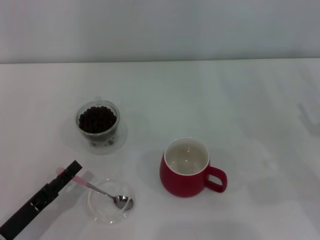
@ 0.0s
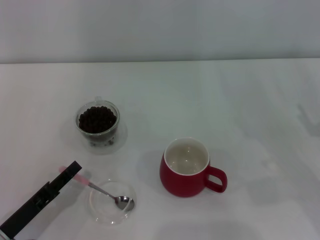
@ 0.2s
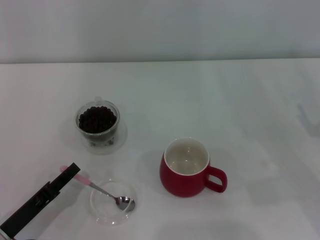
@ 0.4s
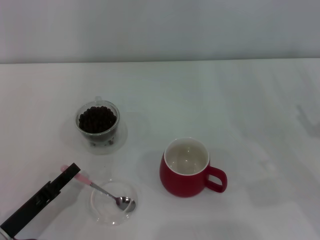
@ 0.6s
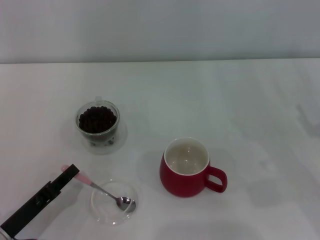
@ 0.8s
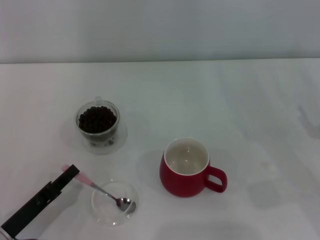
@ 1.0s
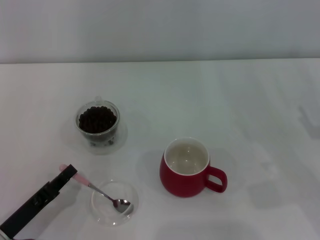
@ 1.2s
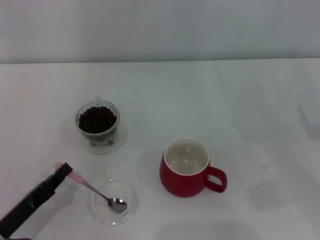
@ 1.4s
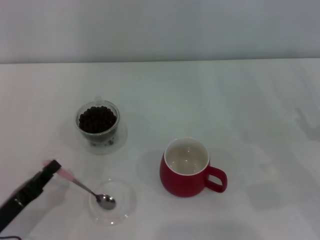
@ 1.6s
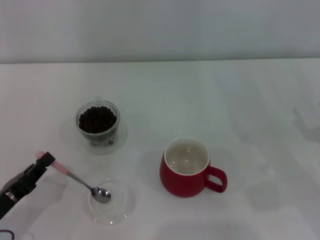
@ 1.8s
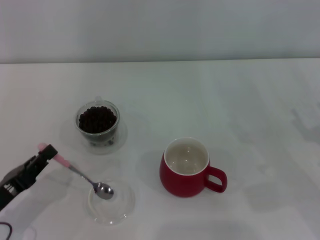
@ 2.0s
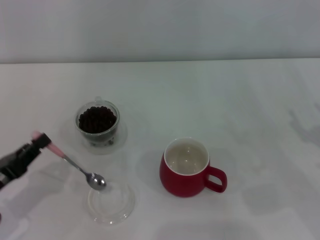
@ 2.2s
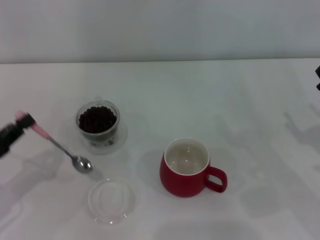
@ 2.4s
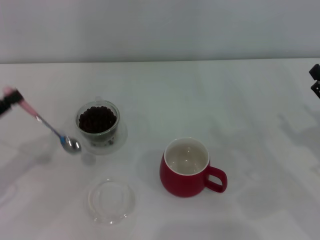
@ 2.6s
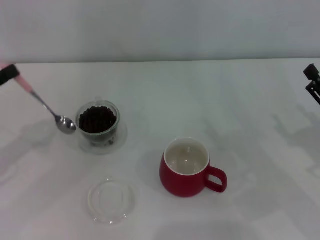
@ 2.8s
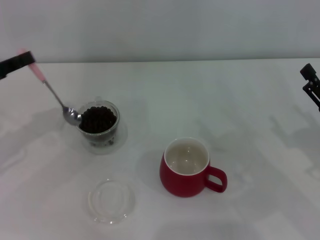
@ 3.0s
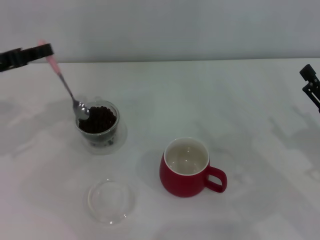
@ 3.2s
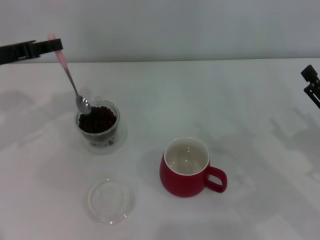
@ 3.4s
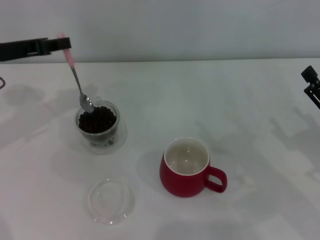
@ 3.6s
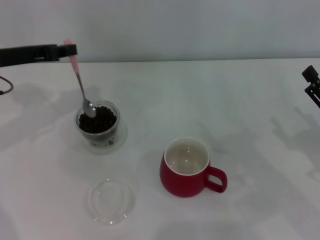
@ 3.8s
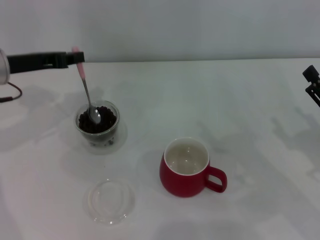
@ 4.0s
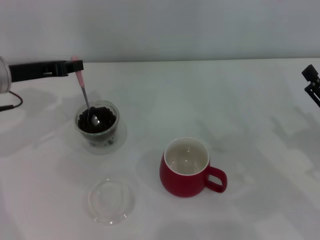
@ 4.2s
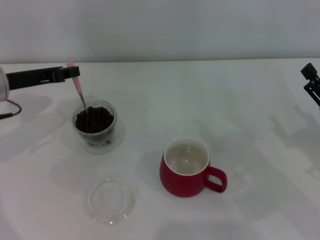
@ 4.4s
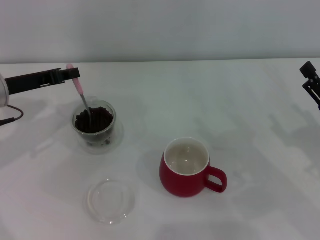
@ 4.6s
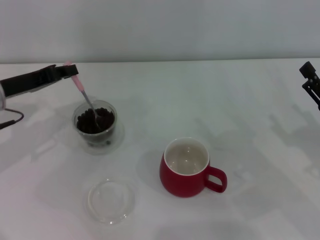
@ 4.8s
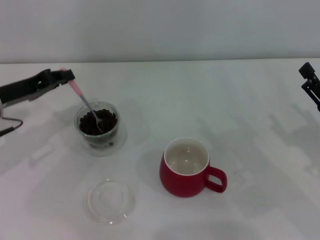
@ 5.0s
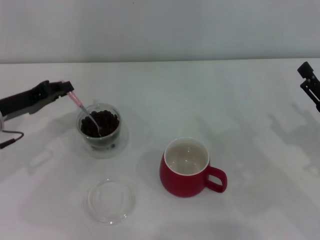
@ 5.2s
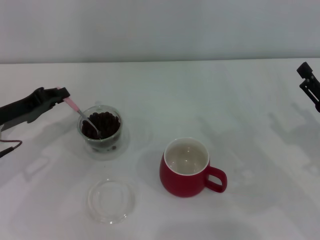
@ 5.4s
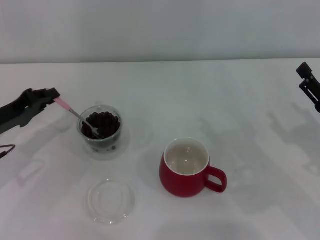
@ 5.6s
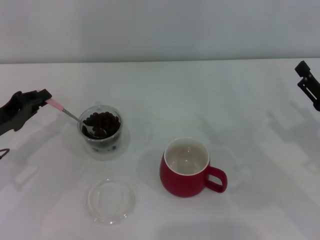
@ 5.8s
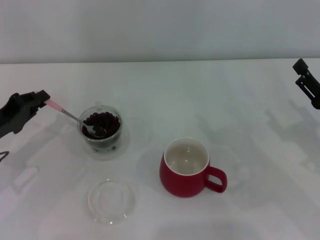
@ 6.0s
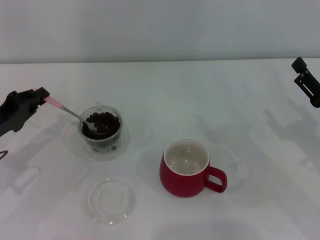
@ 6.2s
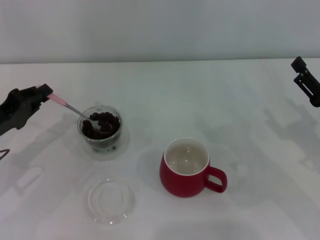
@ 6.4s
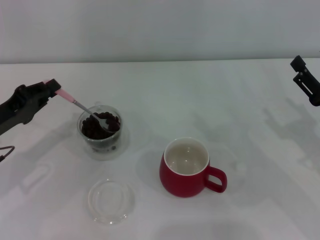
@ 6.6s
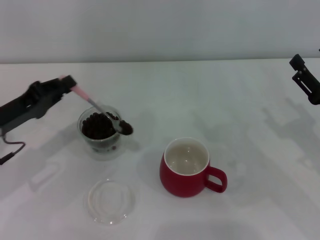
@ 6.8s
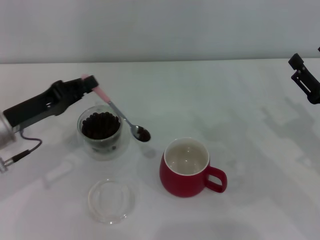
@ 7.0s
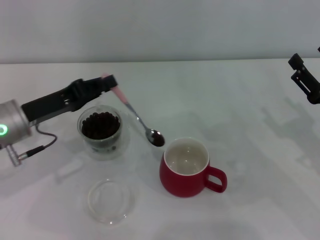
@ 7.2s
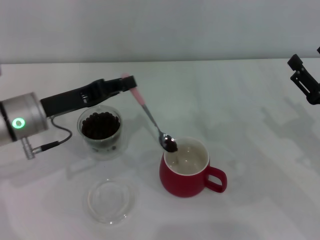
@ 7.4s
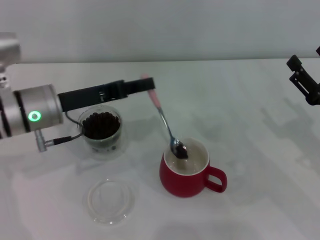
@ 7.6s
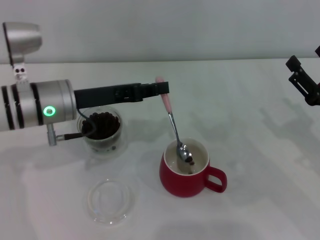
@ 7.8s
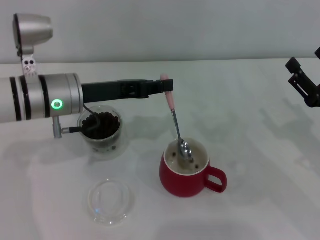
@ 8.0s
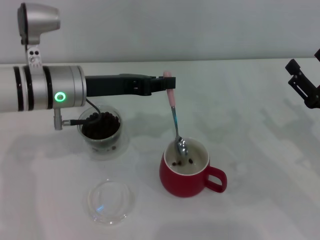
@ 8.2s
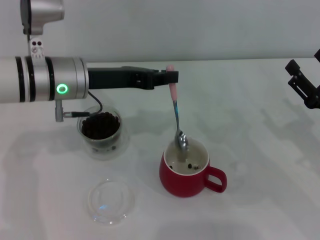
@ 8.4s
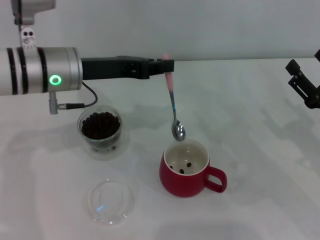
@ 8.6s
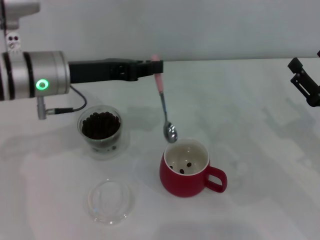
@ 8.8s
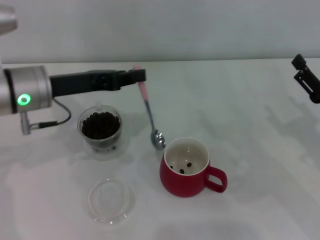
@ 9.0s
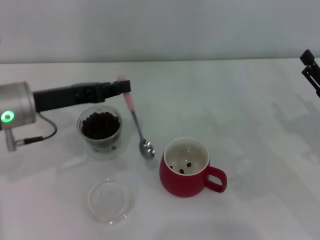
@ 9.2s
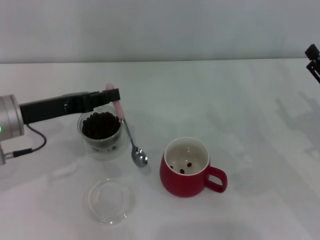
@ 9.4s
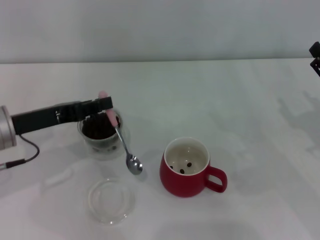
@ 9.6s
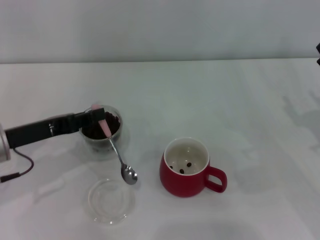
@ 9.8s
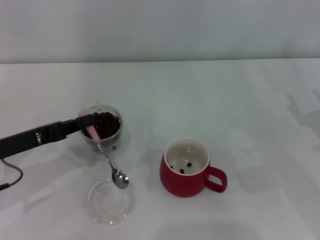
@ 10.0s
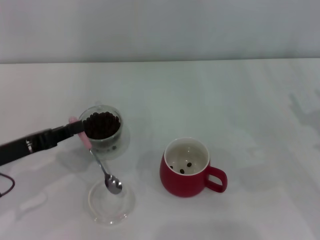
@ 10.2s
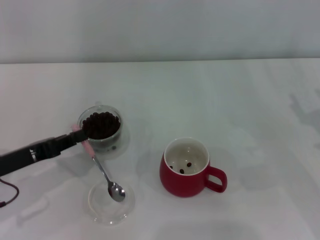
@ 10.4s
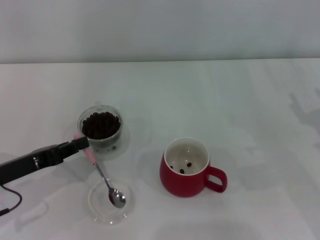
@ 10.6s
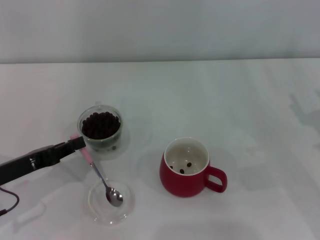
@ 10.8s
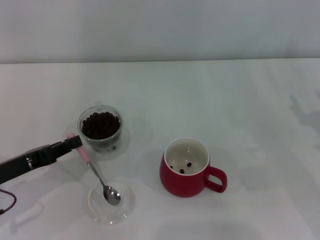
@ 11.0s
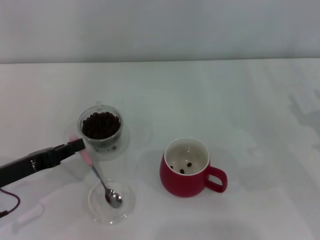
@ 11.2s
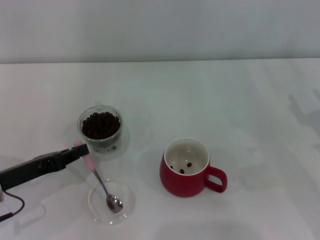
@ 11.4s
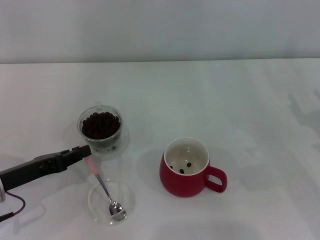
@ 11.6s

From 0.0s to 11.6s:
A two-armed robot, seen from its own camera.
Task of the whole recording: Use a pink spoon to take out the coffee beans from the glass and pour them into the red cup.
From 0.0s to 1.4s: The left gripper closes its fingers.
From 1.4s to 2.8s: The left gripper goes some 20 cm upward, forward and to the left.
From 2.8s to 4.4s: The left gripper heads forward and to the right, covering approximately 15 cm.
From 4.4s to 5.8s: The left gripper goes roughly 10 cm backward and downward.
From 5.8s to 7.2s: The left gripper heads to the right, covering approximately 5 cm.
From 7.2s to 8.8s: The left gripper heads upward and to the right, covering roughly 10 cm.
From 8.8s to 10.2s: The left gripper is displaced to the left, backward and downward by roughly 15 cm.
From 10.2s to 11.6s: There are only small adjustments of the grippers.

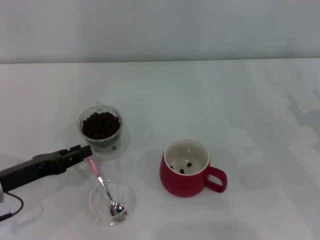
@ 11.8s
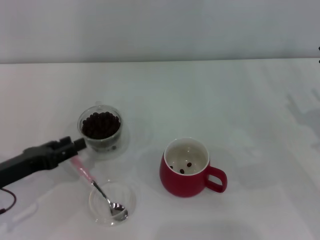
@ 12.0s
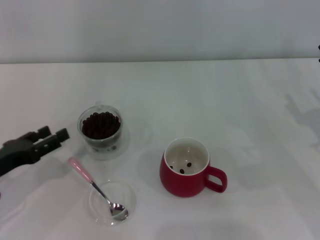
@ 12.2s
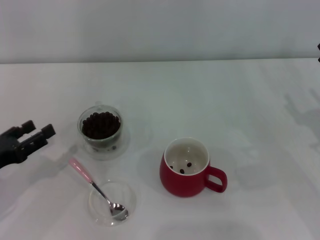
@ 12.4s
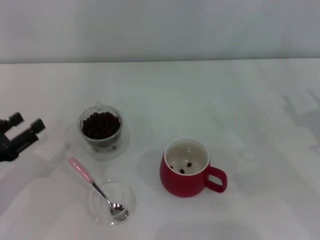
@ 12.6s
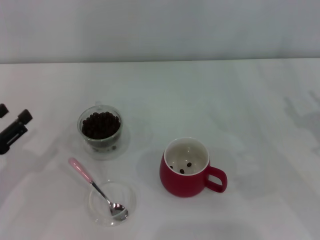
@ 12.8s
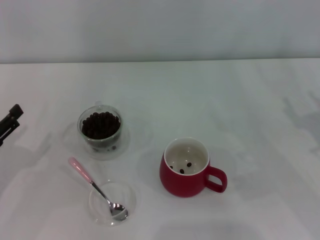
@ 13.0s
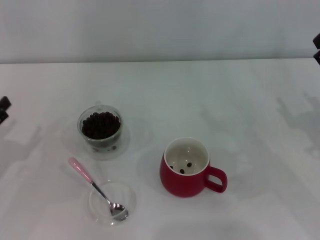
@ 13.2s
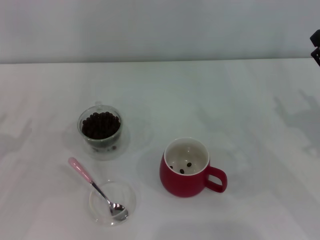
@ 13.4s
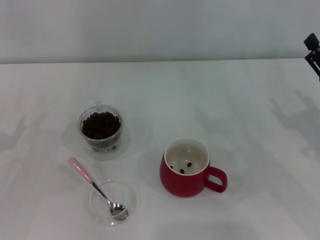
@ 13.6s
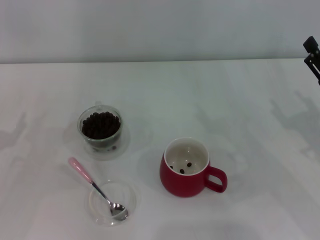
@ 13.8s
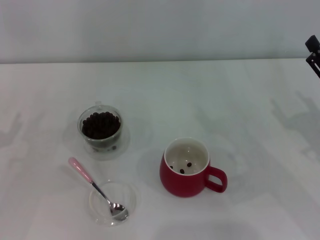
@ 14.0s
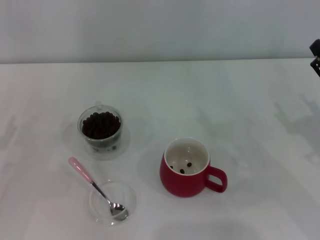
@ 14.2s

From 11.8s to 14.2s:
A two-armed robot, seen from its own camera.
Task of the whole recording: Use a pink spoon to take out the coffee beans from the glass and pour them into the red cup.
From 11.8s to 13.0s: The left gripper shifts about 5 cm to the left, and opens its fingers.
From 13.0s to 14.2s: The grippers stay close to where they were, moving slightly.

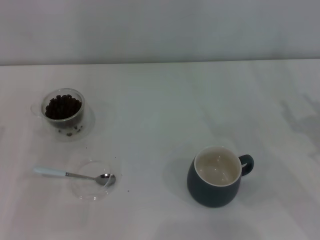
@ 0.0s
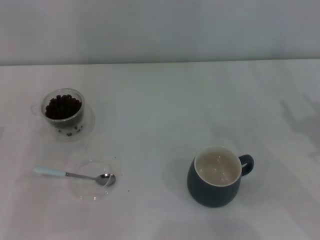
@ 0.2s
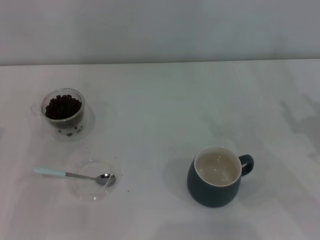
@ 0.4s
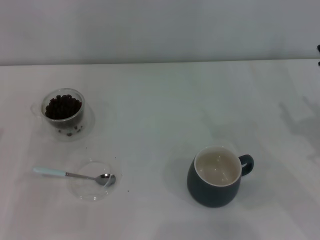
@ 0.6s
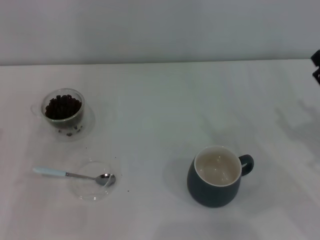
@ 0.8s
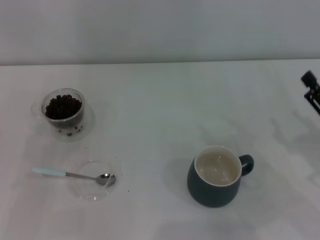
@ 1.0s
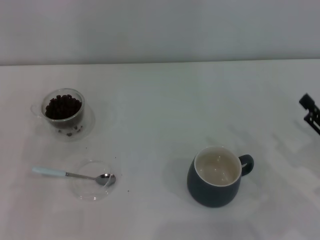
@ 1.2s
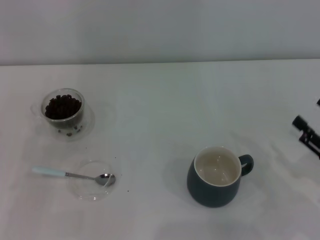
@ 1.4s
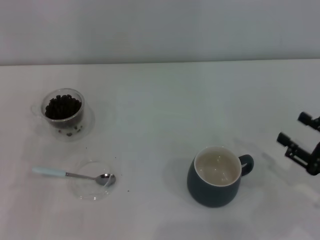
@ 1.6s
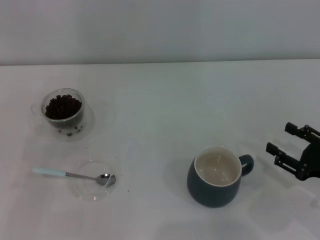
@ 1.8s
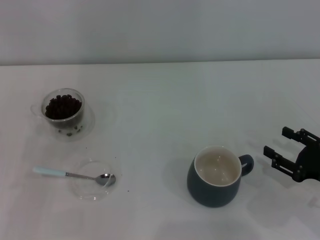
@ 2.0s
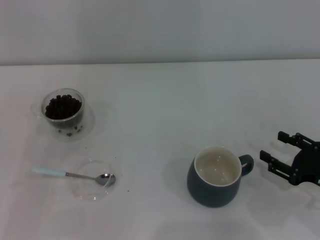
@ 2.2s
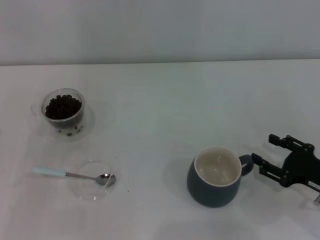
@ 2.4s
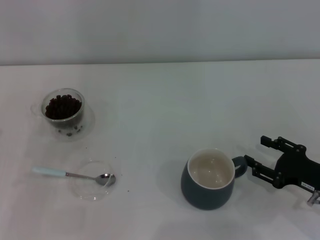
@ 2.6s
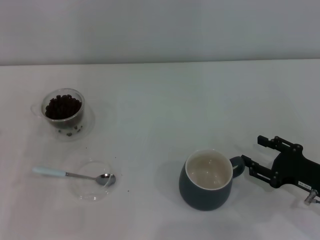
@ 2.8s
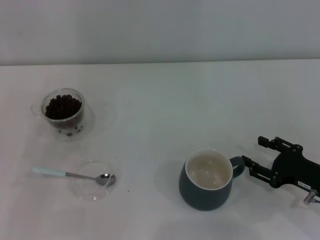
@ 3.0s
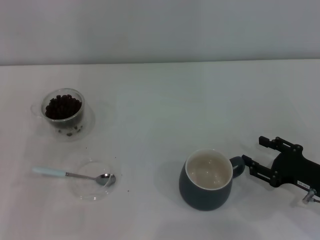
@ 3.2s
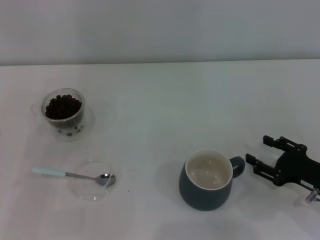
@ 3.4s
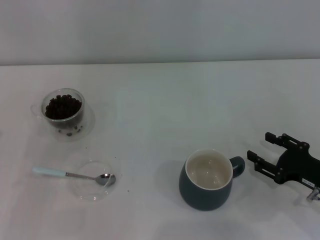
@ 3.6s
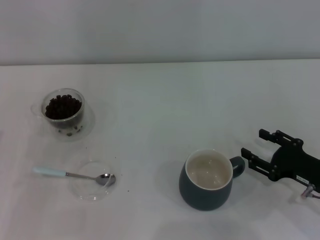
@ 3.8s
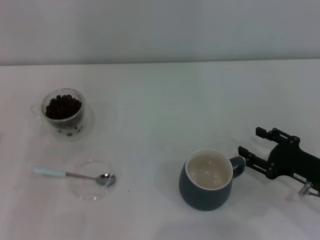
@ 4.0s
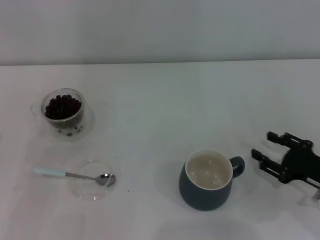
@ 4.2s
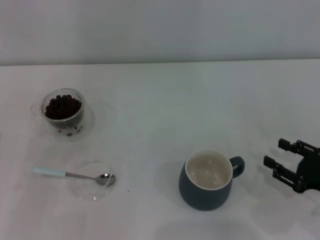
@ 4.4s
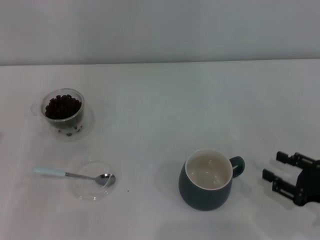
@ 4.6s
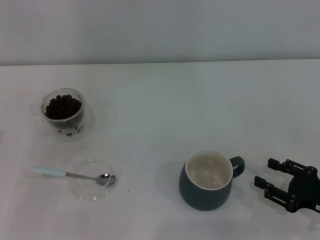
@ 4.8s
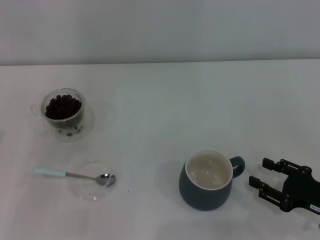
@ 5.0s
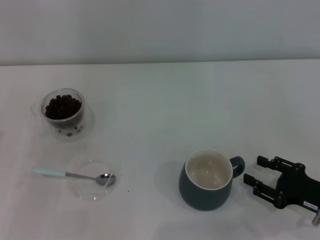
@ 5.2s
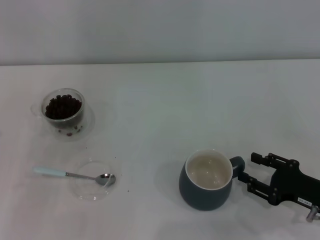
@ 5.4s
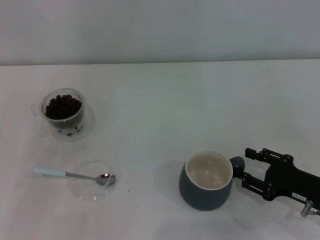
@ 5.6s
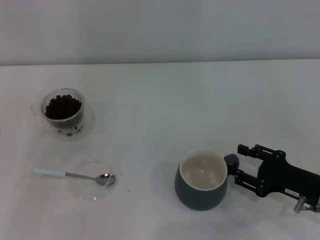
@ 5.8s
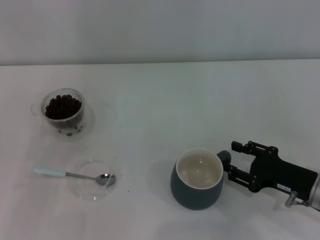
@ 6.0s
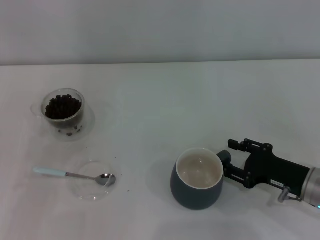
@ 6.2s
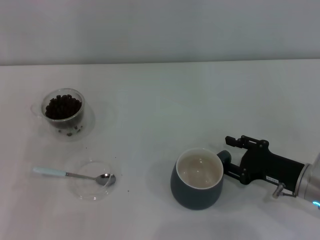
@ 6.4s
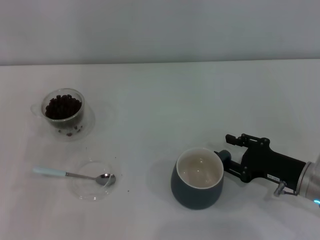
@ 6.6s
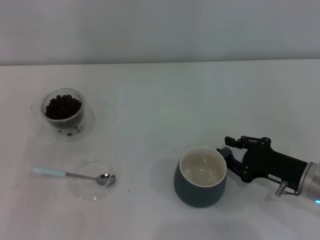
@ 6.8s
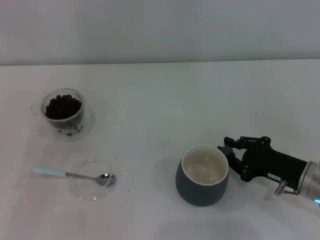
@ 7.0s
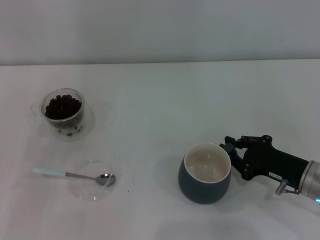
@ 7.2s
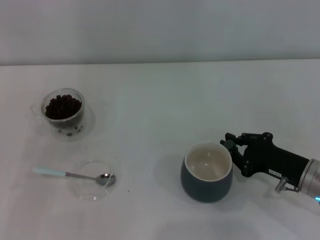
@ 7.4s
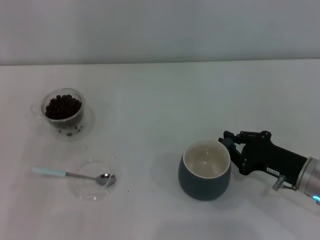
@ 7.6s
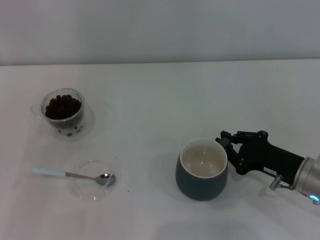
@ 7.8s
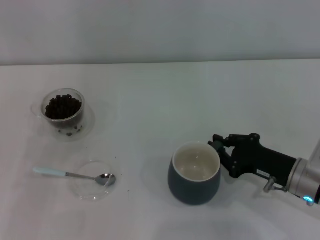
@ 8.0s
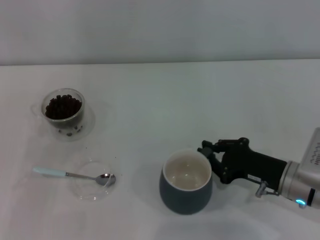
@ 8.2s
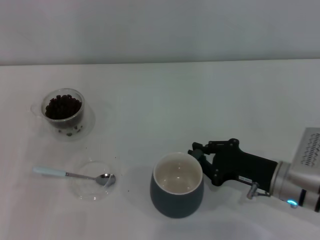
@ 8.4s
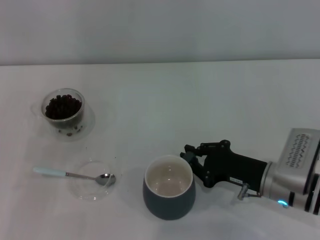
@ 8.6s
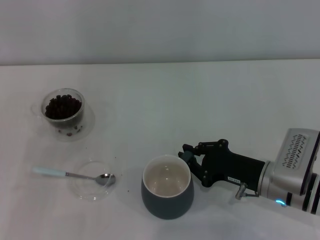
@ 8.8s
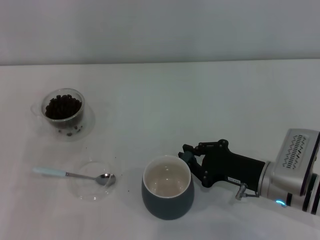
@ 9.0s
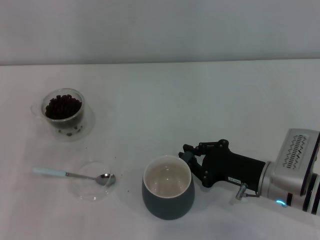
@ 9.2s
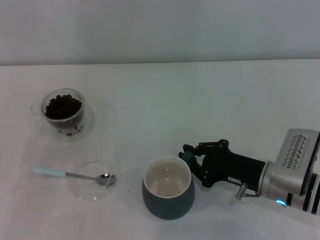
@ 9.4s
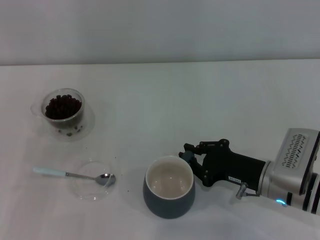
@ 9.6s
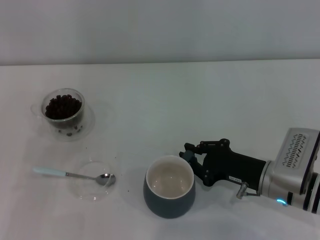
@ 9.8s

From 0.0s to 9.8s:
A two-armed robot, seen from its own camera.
Task of the whole recording: Use a blue spoon to take out the coffee beans from the glass and pour them into the gray cup.
From 0.0s to 1.4s: The right gripper is displaced backward by roughly 5 cm.
From 1.4s to 2.8s: The right gripper moves approximately 5 cm.
From 2.8s to 4.2s: Both grippers stay about where they are.
From 4.2s to 7.0s: The grippers stay close to where they were, moving slightly.
From 7.0s to 8.4s: The right gripper closes its fingers.
From 8.4s to 9.8s: The grippers stay close to where they were, moving slightly.
